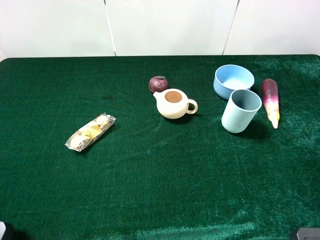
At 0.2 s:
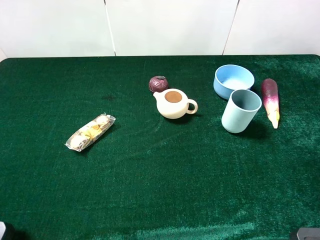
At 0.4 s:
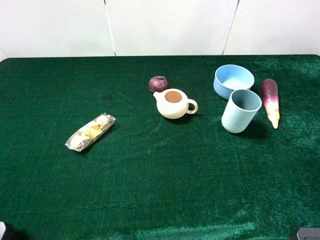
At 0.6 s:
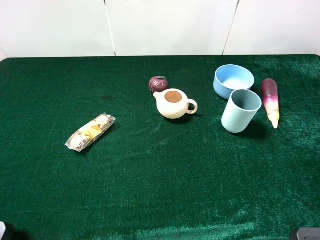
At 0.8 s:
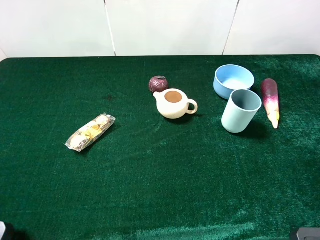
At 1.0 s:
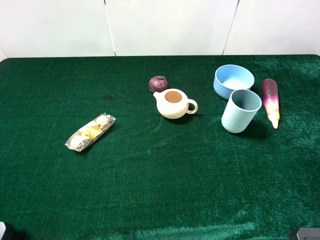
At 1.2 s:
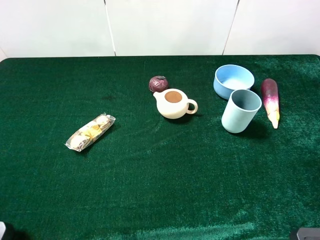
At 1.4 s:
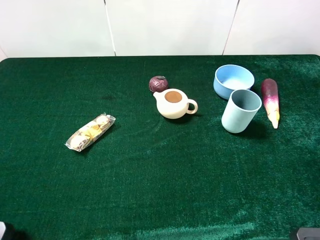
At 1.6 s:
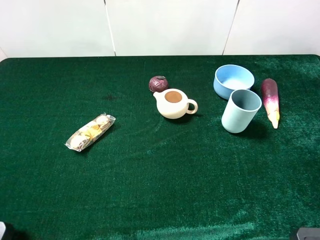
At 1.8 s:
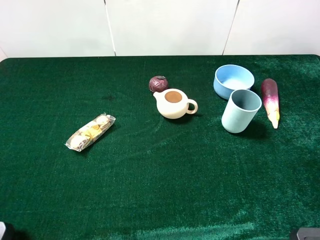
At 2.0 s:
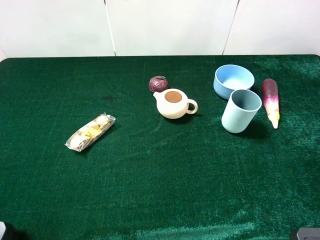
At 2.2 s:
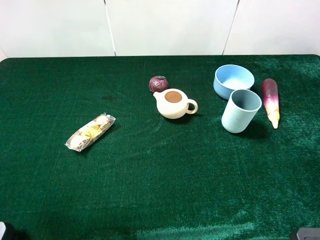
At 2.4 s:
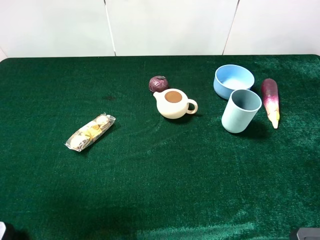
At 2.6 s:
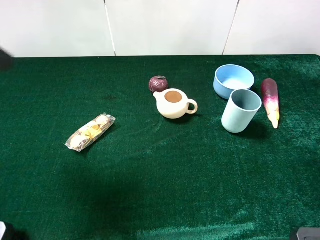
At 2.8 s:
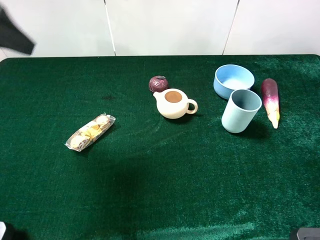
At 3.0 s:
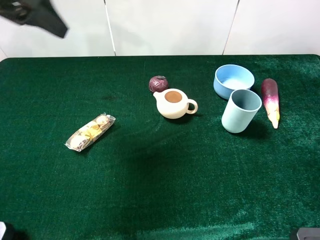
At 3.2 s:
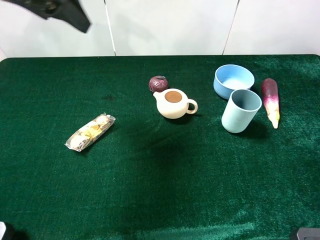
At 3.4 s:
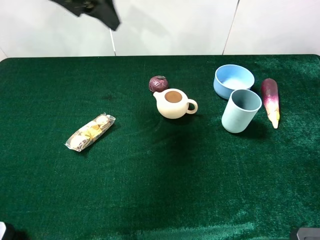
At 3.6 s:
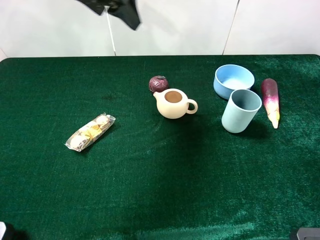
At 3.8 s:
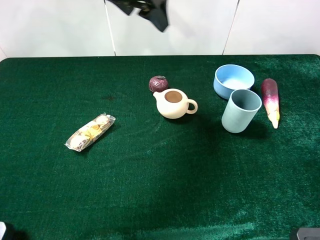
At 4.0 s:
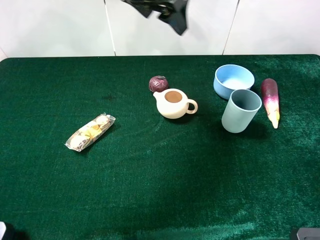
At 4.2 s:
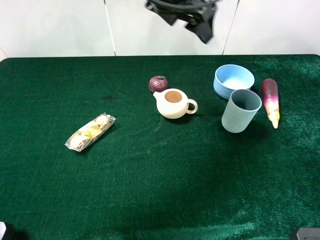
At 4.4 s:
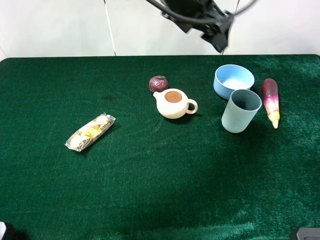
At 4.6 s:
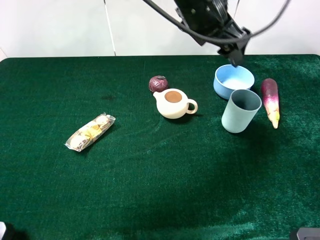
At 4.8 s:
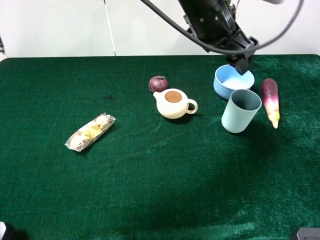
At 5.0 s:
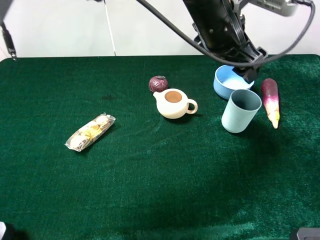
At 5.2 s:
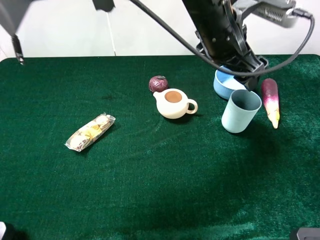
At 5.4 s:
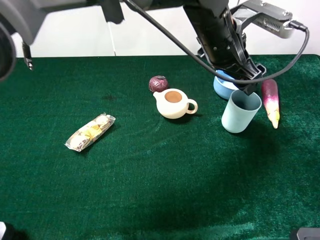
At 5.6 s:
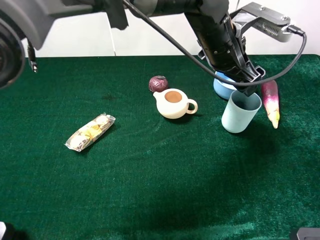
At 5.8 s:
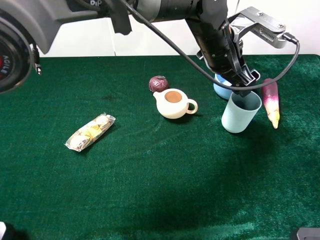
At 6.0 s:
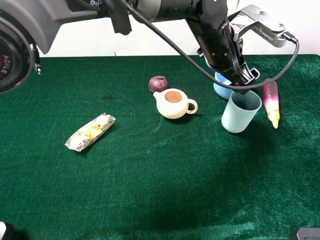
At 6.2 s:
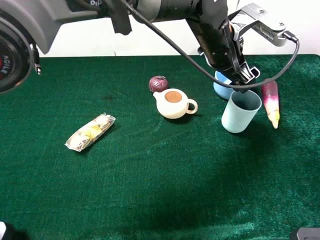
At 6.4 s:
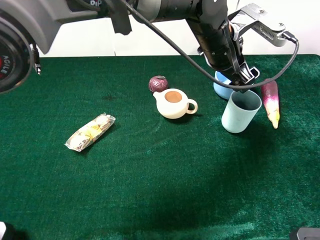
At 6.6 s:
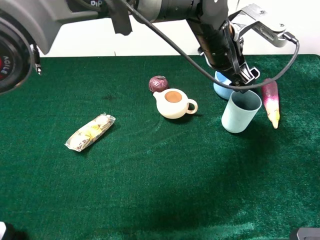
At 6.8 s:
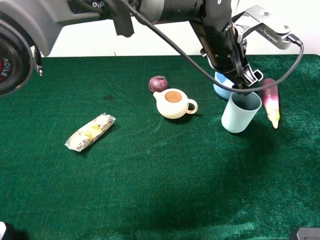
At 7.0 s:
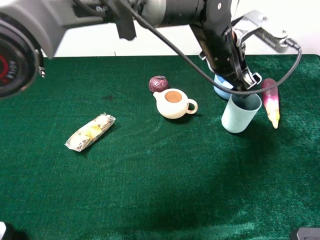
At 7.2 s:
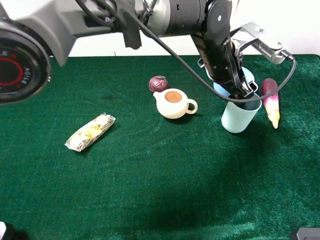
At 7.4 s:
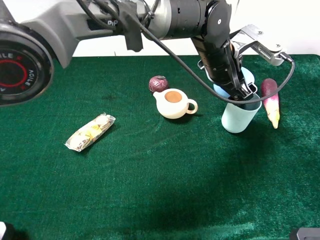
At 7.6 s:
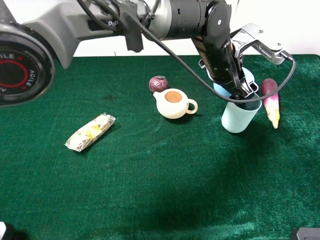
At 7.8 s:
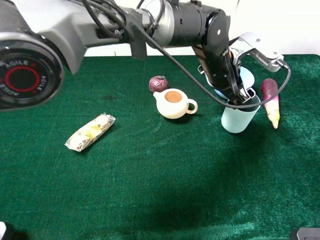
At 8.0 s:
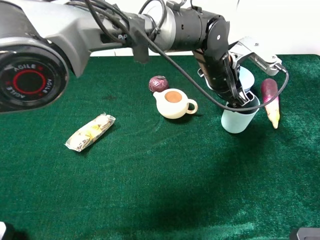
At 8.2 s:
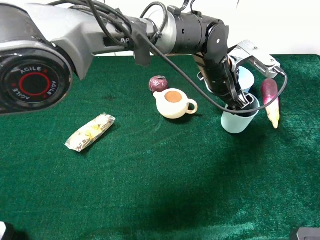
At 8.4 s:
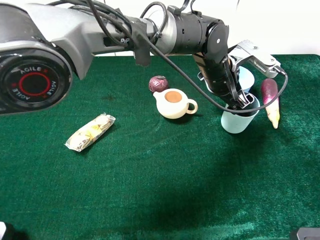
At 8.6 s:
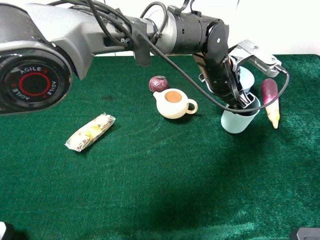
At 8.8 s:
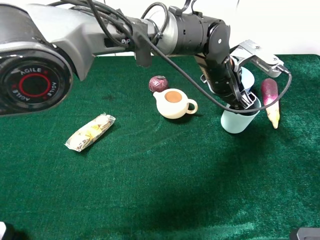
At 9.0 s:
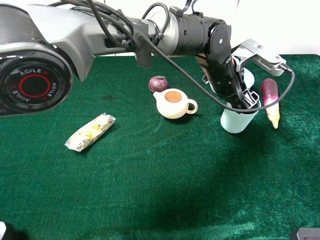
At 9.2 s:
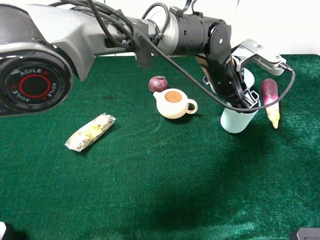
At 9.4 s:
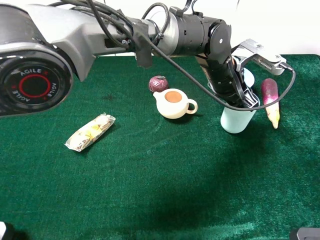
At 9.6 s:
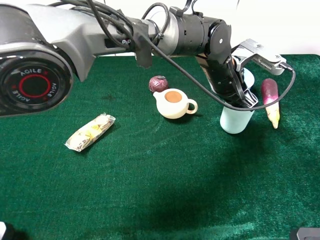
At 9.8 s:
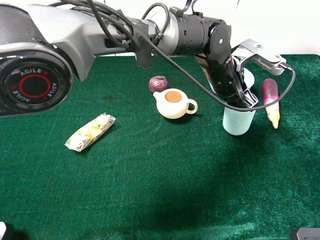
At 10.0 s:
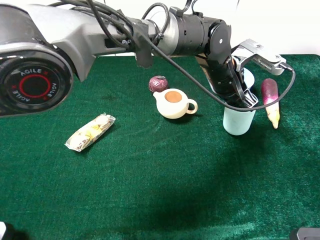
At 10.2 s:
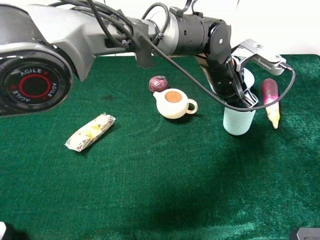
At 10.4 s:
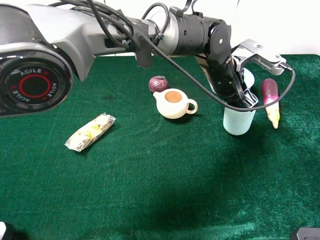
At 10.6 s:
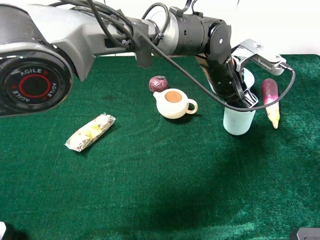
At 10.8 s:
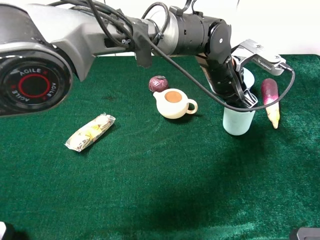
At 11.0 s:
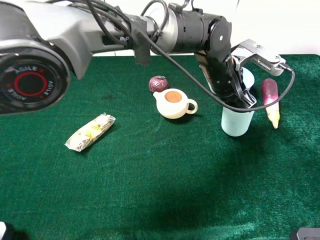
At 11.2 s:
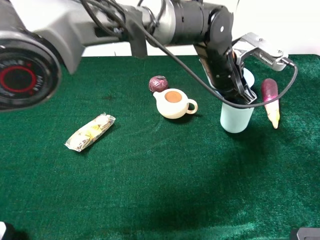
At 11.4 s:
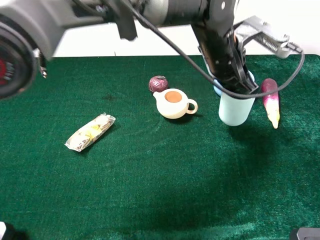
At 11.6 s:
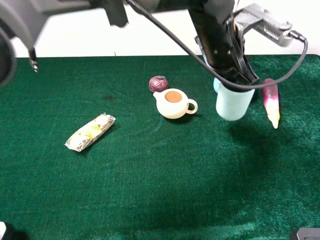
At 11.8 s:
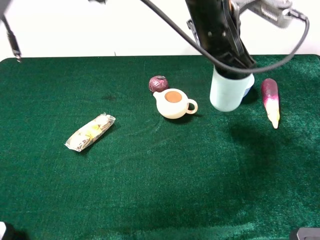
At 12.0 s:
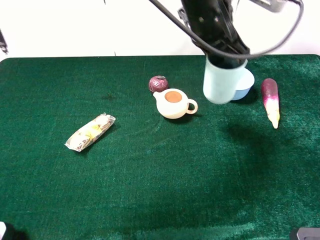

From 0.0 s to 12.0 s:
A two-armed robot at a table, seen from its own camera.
Task of the whole recording: the gripper move the object.
Step, from 0.0 s to 10.6 s: Grasp the with cyan cup the left gripper.
From 0.0 s to 1.6 s: Both grippers stay about where they are.
From 1.6 s to 3.0 s: The left gripper is displaced forward by some 30 cm.
From 3.0 s to 4.4 s: The left gripper is displaced to the right by approximately 25 cm.
From 4.4 s to 6.0 s: The left gripper heads downward and to the right, covering some 10 cm.
From 6.0 s to 7.6 s: There are only small adjustments of the grippers.
From 10.4 s to 12.0 s: The left gripper goes roughly 15 cm upward and to the left.

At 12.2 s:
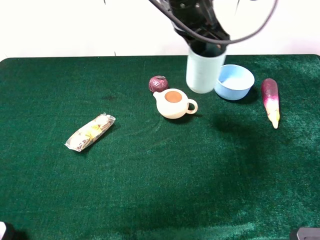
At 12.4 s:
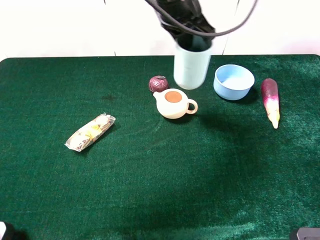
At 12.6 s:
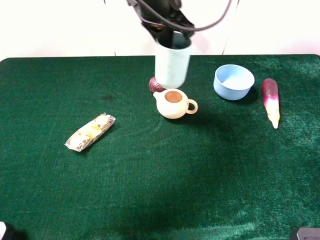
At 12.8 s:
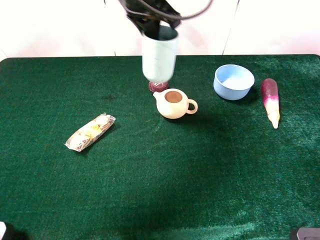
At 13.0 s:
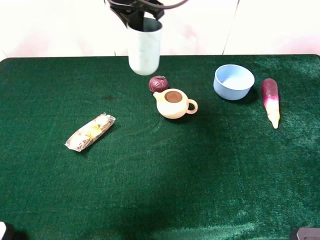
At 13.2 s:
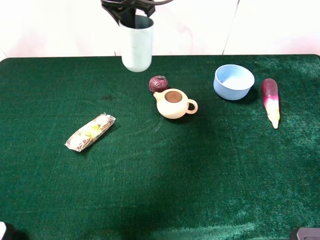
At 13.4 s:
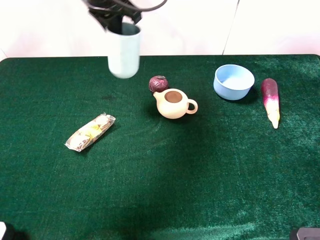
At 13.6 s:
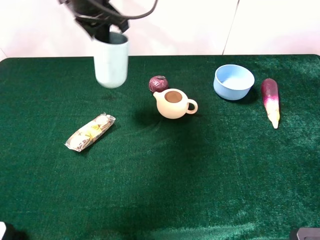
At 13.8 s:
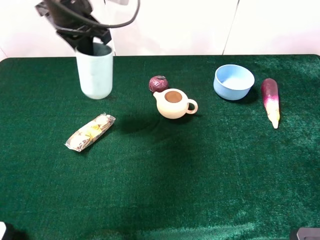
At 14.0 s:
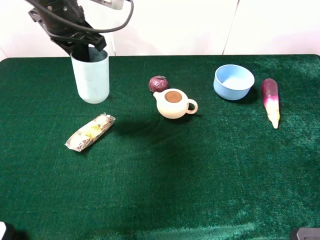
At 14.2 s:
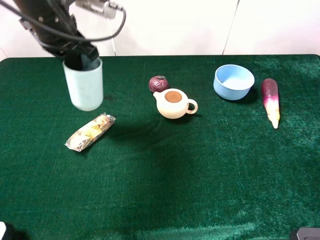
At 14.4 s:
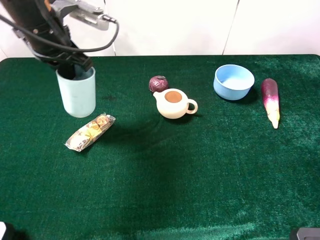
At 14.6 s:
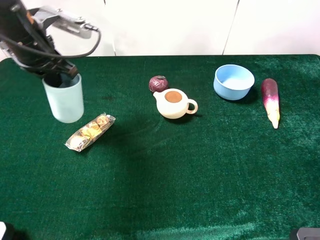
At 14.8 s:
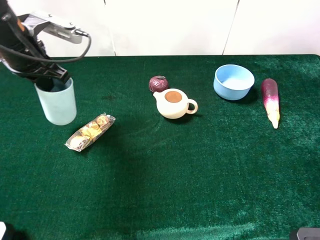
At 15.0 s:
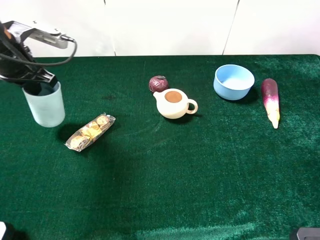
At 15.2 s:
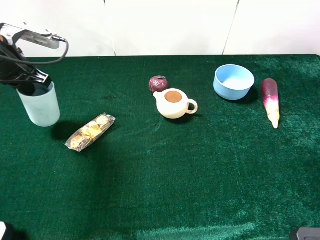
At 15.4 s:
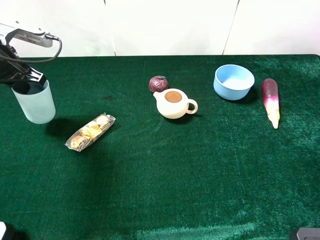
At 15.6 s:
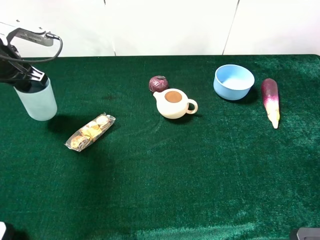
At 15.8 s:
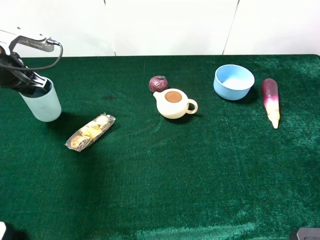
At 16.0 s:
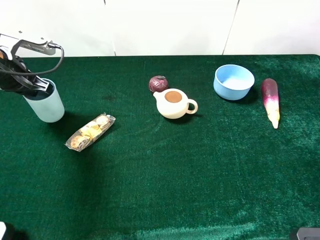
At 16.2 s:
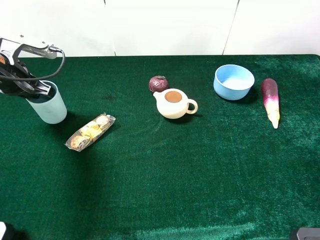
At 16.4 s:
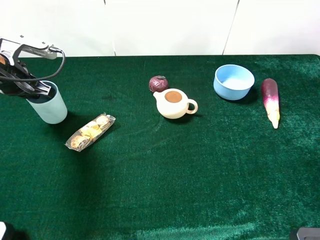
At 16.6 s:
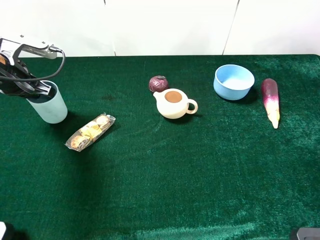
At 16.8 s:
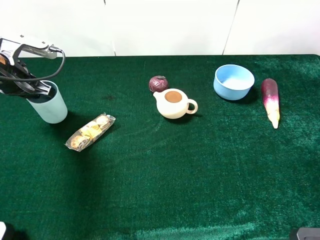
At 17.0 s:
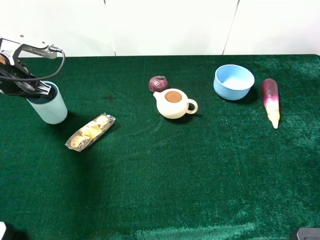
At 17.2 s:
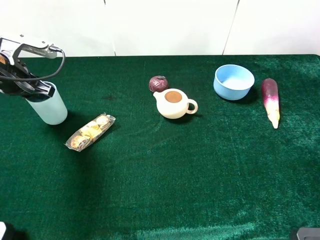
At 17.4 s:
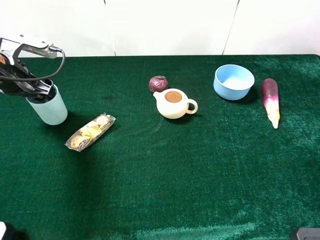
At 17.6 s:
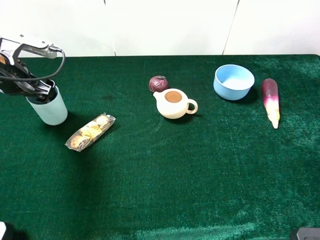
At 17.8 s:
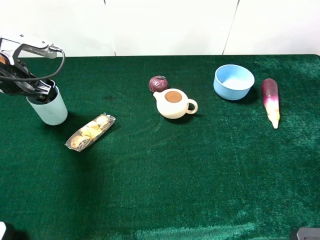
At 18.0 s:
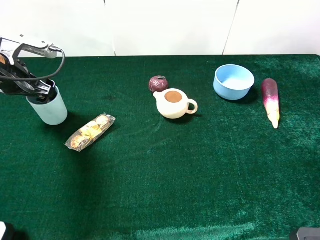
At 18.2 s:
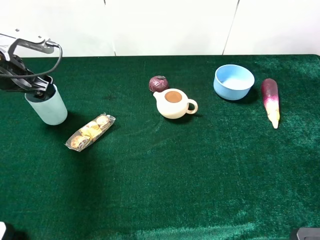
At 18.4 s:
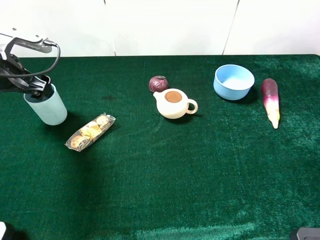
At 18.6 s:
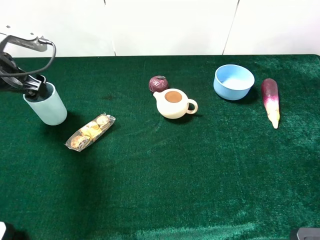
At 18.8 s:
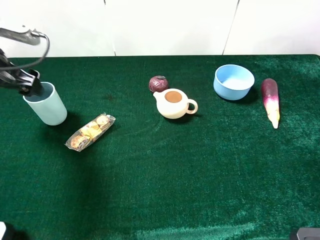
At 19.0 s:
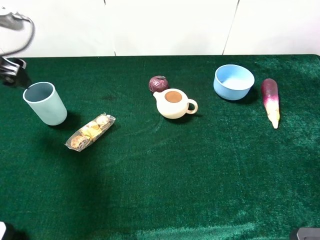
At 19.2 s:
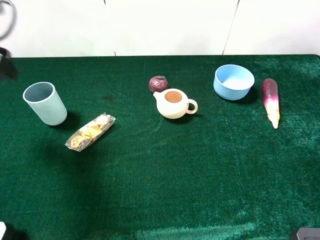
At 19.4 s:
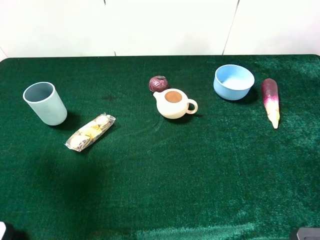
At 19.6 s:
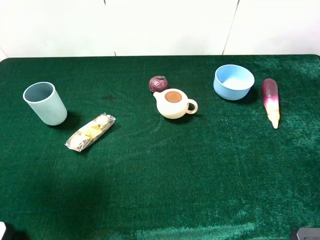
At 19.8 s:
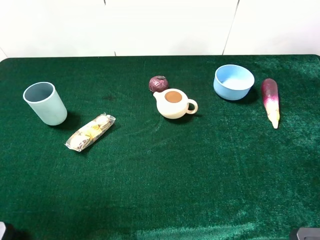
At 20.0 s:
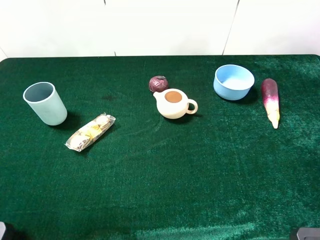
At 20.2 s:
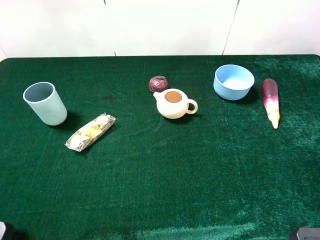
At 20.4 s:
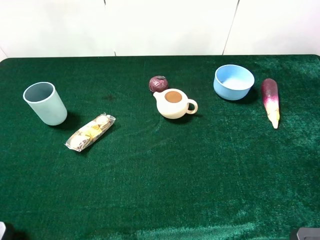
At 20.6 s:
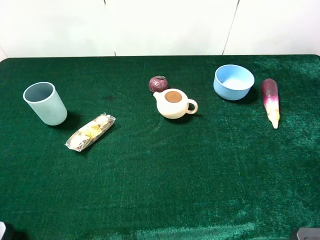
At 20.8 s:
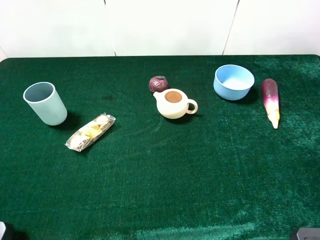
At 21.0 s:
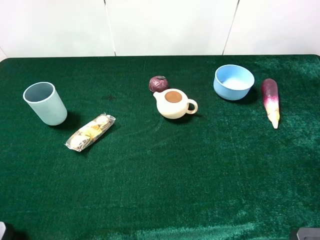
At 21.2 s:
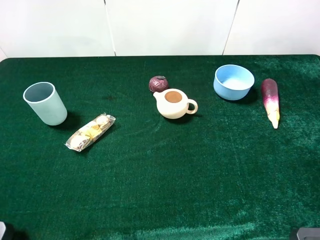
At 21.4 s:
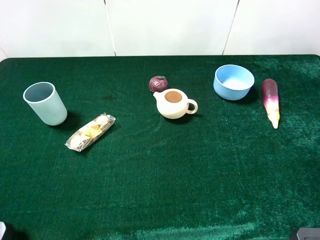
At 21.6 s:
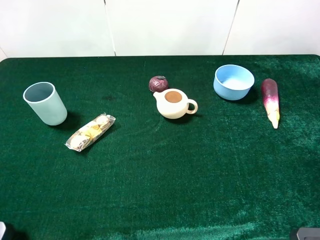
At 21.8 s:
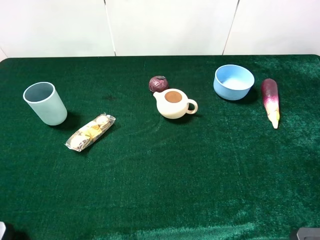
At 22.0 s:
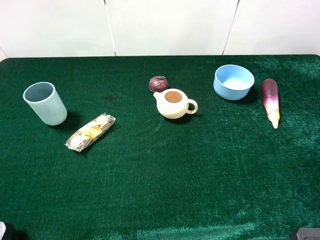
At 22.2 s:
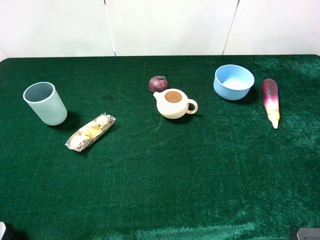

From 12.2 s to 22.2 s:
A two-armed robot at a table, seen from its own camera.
Task of the whole recording: the gripper move the object.
Step, from 12.2 s to 19.0 s: Place the cyan cup on the table with the left gripper.
From 12.2 s to 13.6 s: The left gripper travels to the left by some 15 cm.
From 13.6 s to 15.0 s: The left gripper travels to the left, downward and backward by roughly 20 cm.
From 15.0 s to 16.4 s: The grippers move only a little.
From 16.4 s to 18.0 s: The left gripper opens up.
From 18.0 s to 19.4 s: The left gripper moves upward and backward, some 20 cm.
From 19.4 s to 20.8 s: The left gripper shifts about 20 cm backward.
